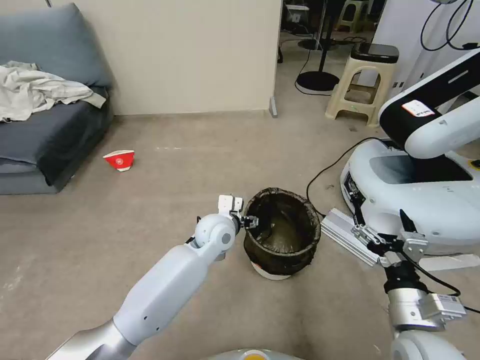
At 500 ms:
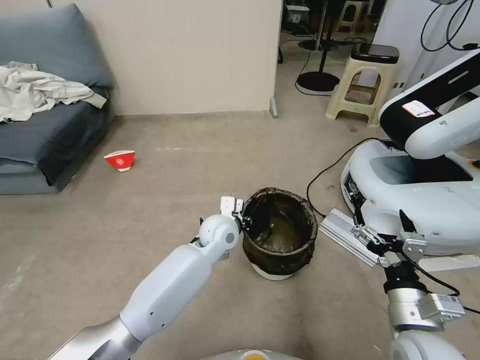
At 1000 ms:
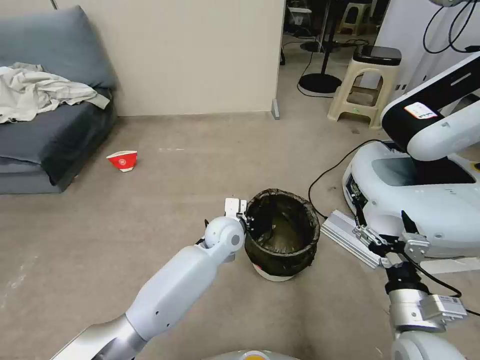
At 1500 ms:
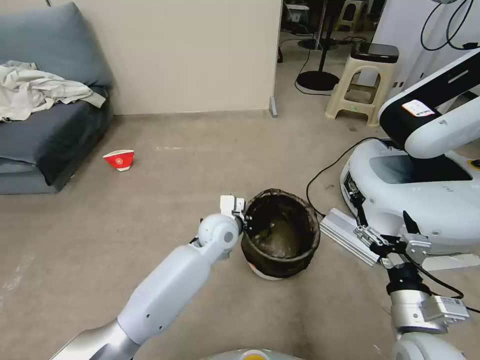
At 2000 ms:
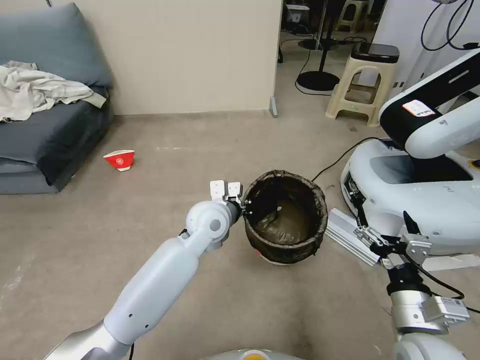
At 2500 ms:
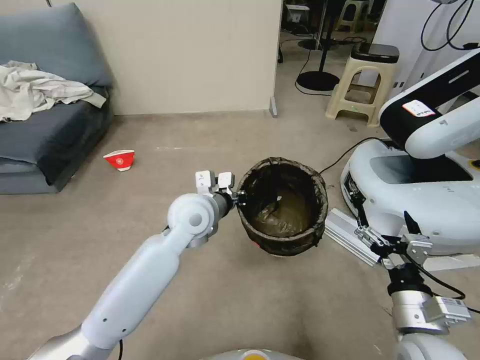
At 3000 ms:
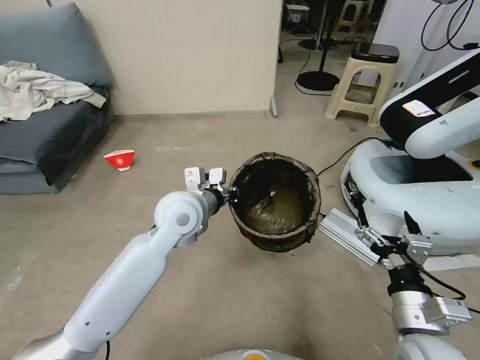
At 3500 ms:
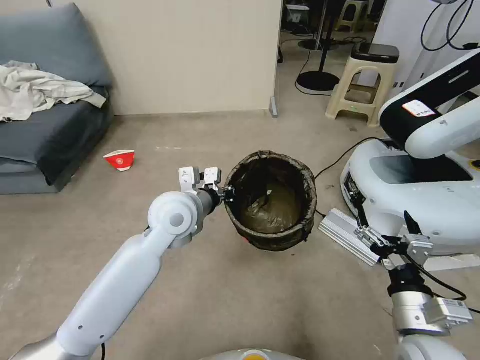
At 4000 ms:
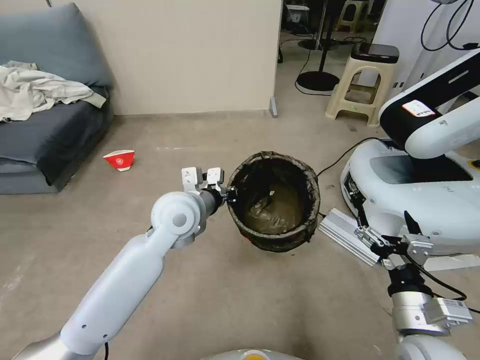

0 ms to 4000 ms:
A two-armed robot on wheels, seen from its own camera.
Task of the whole recording: Pick up the trash can from the floor.
0 ms to 2000 ms: The left gripper shifts some 5 cm upward, and closes its fingers.
2000 ms to 4000 ms: The left gripper travels upward and to the left by about 10 cm.
